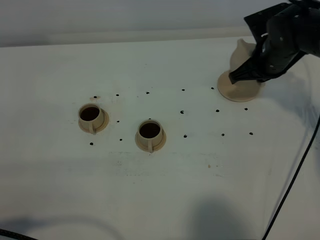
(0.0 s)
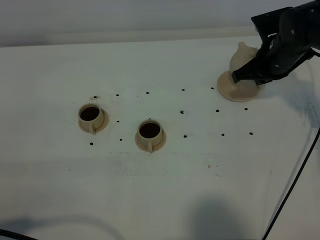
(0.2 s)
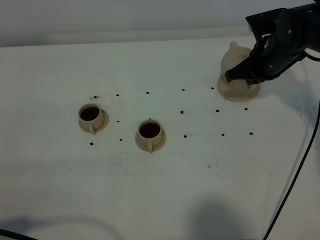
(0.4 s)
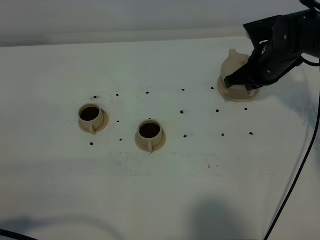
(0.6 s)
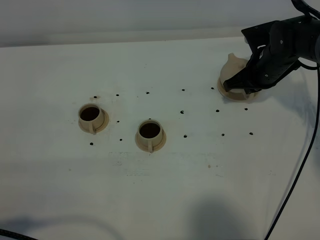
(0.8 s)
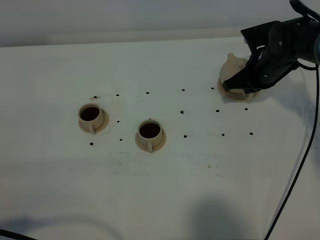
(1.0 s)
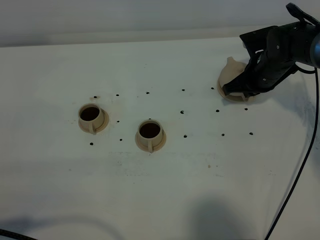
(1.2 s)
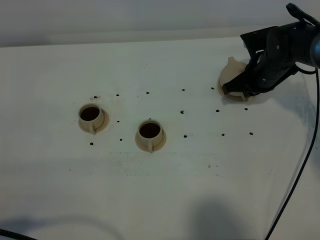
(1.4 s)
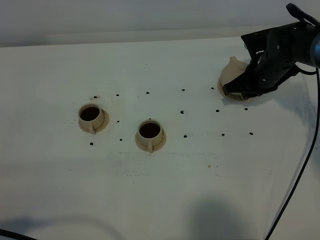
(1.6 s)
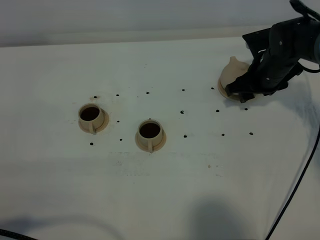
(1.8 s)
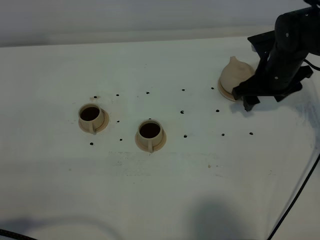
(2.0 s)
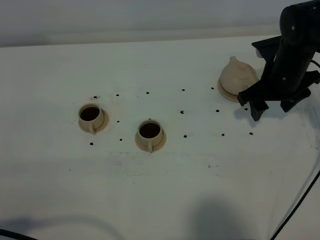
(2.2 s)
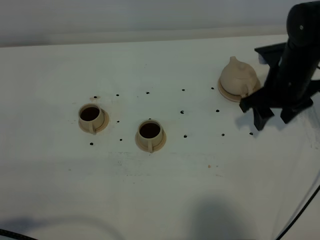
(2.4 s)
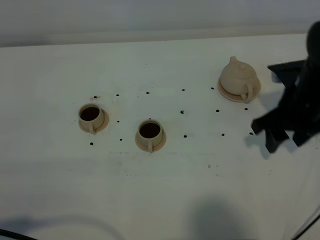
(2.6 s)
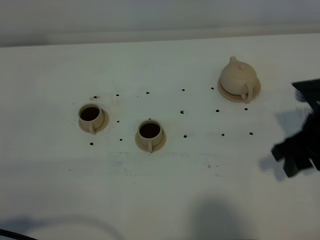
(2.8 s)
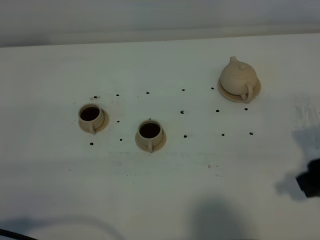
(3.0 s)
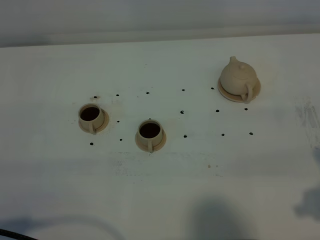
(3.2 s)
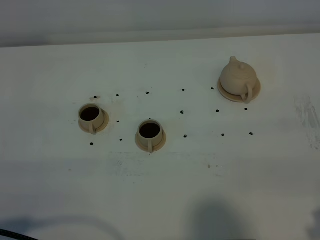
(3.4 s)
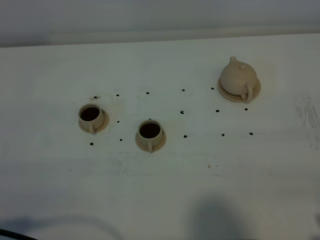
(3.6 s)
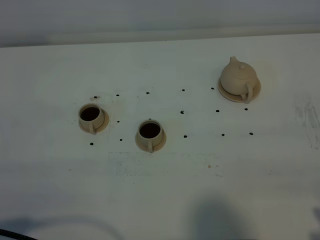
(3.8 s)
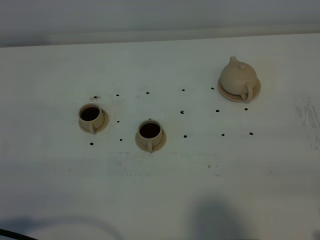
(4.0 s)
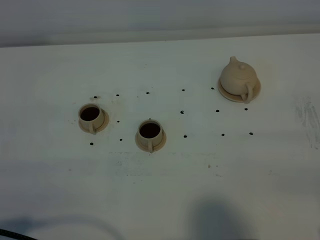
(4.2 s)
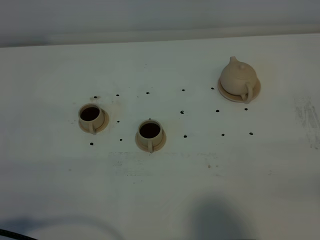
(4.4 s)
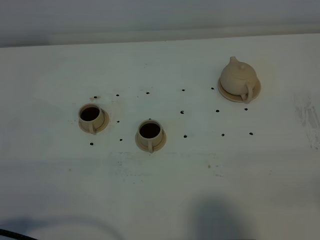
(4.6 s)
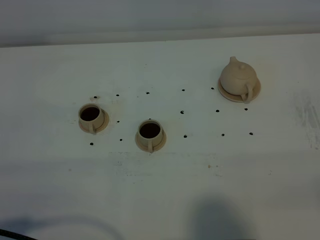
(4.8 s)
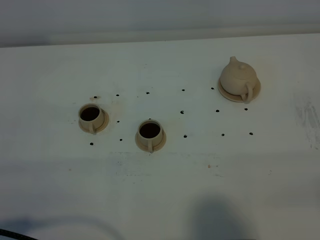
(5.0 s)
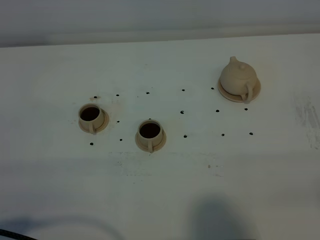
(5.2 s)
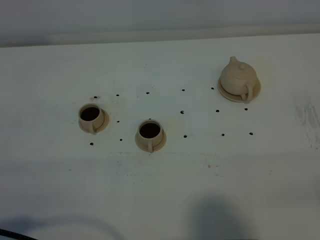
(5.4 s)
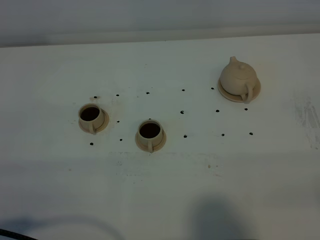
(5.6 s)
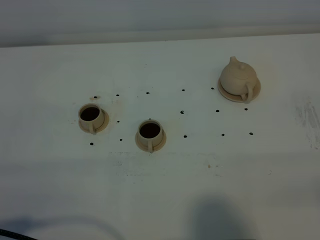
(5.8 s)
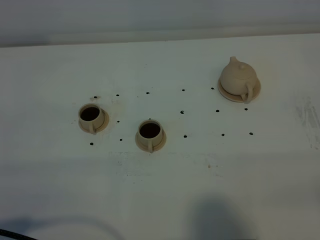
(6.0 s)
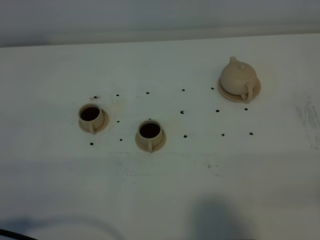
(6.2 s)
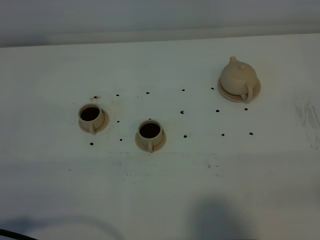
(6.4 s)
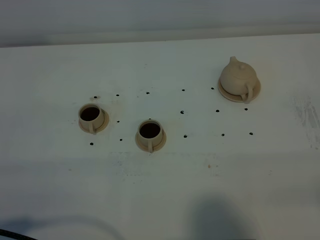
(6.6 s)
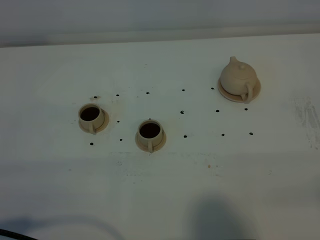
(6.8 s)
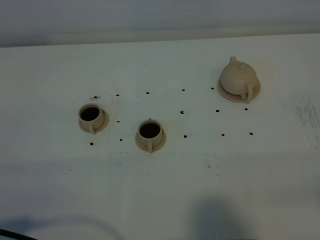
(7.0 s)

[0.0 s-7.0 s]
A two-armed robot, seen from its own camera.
Task of the whole recording: grasp the brown teapot and pour the tea into the two brown teacups one by one, put the brown teapot back in its original place.
0.0 to 1.4 s: The right gripper shifts approximately 5 cm downward.
1.4 to 2.8 s: The right gripper goes some 20 cm backward and upward, and opens its fingers.
2.8 to 4.2 s: The right gripper travels backward by roughly 20 cm.
5.6 to 7.0 s: Neither gripper changes place.
